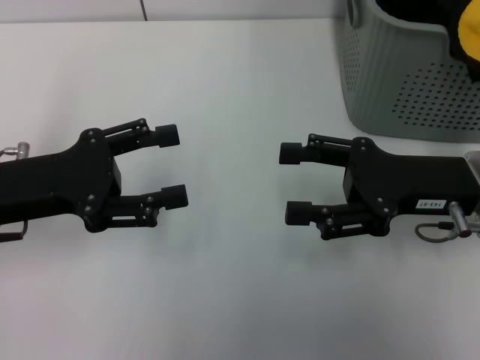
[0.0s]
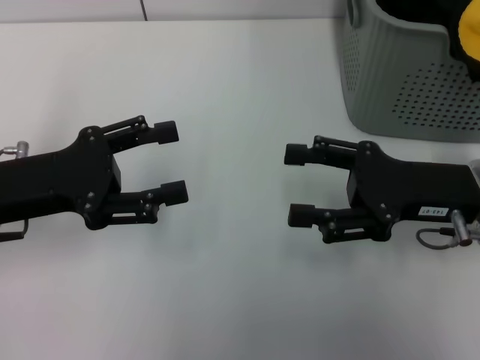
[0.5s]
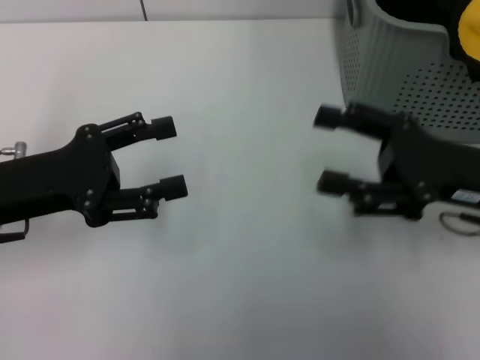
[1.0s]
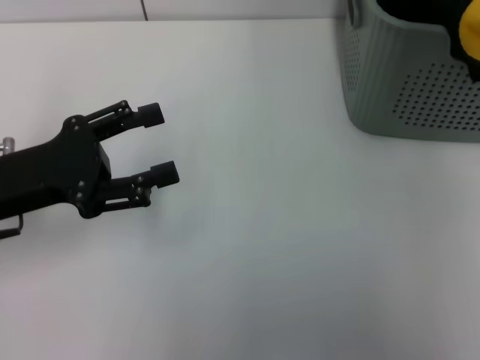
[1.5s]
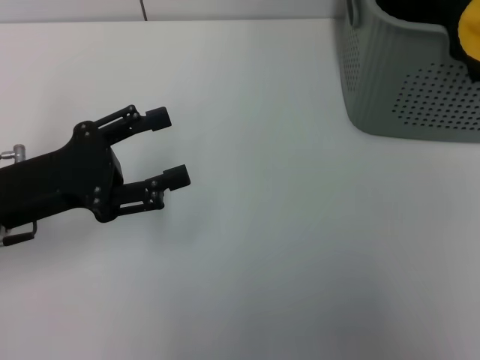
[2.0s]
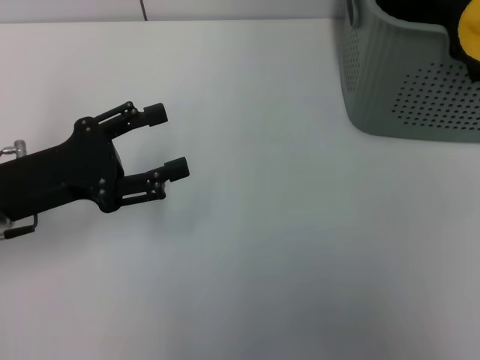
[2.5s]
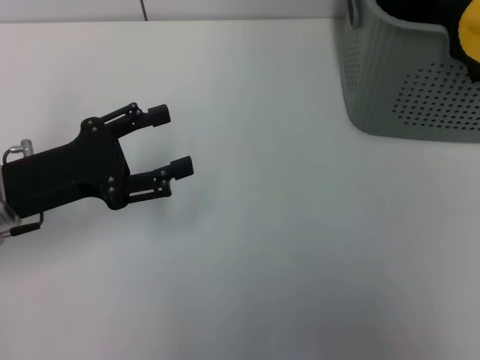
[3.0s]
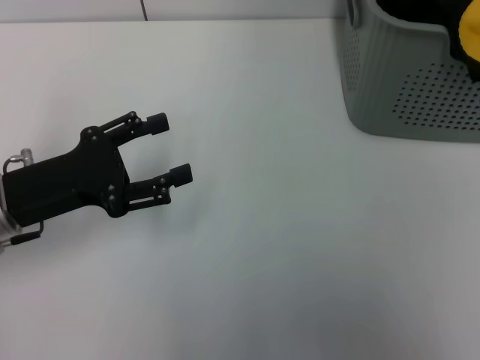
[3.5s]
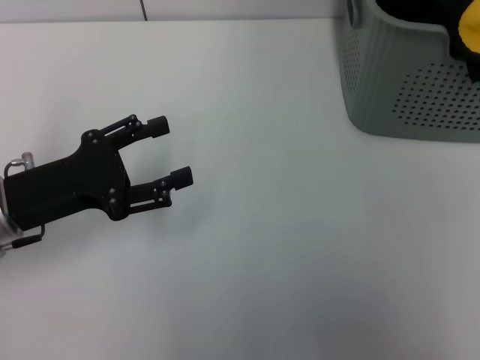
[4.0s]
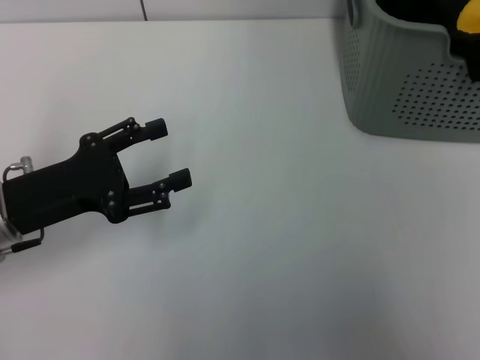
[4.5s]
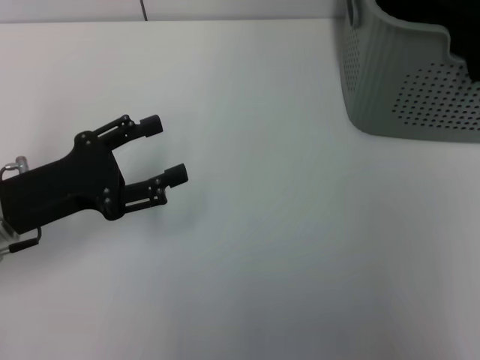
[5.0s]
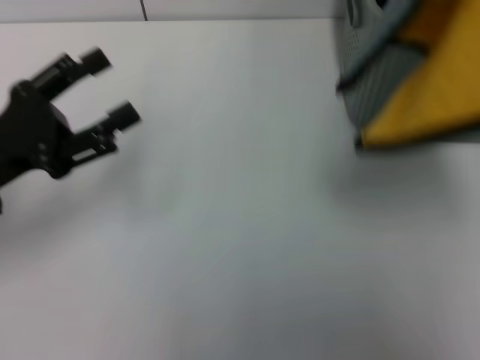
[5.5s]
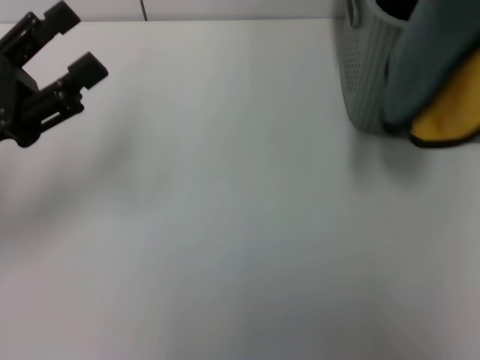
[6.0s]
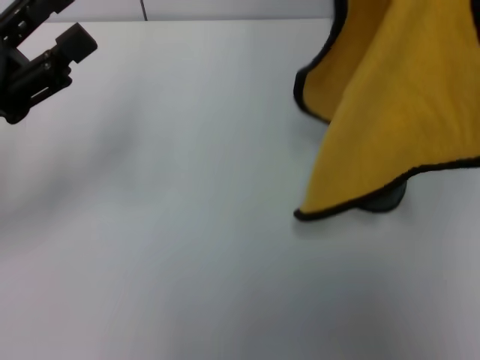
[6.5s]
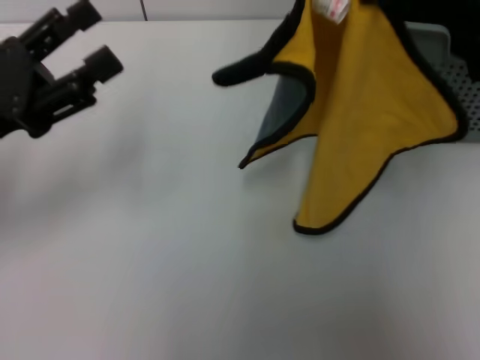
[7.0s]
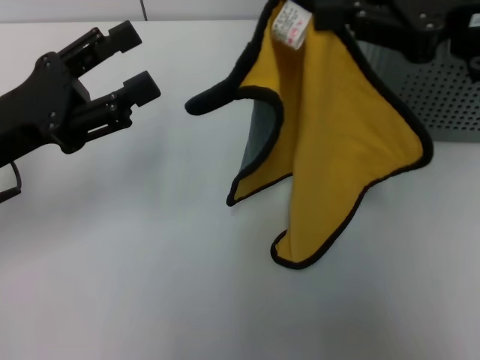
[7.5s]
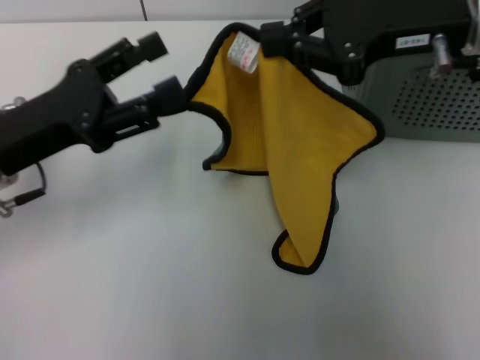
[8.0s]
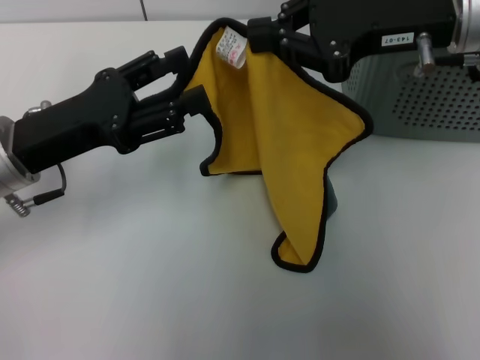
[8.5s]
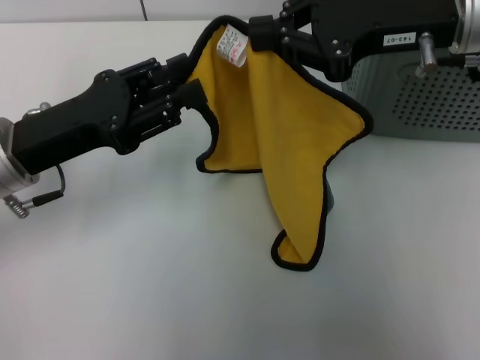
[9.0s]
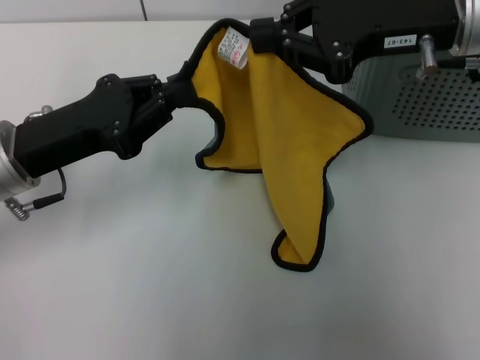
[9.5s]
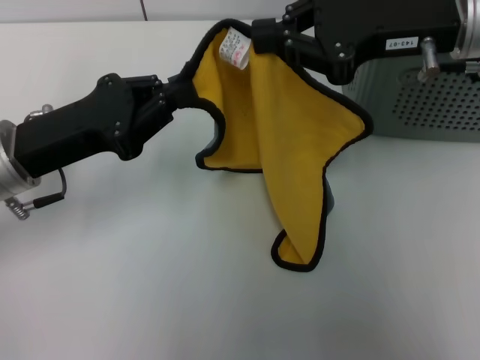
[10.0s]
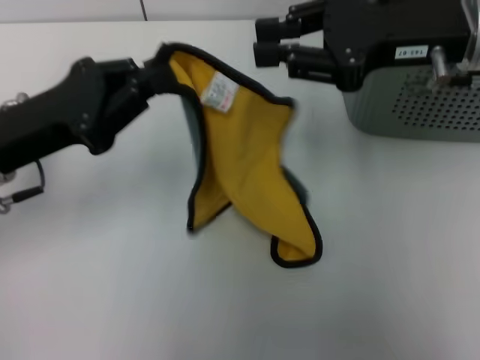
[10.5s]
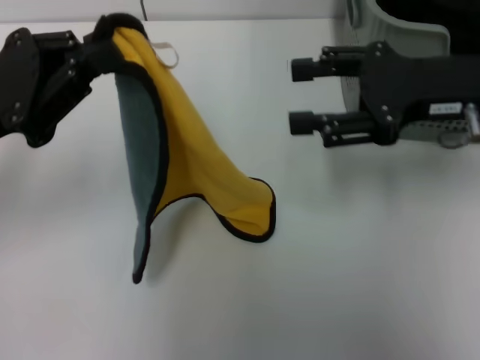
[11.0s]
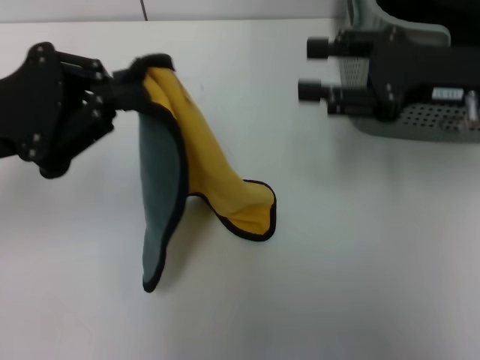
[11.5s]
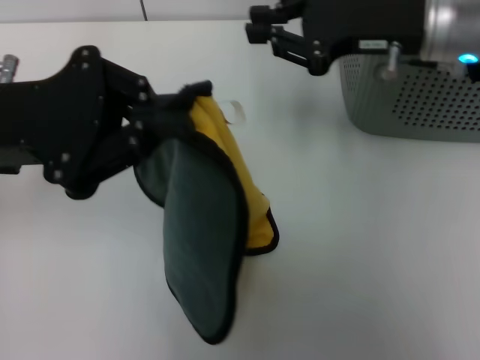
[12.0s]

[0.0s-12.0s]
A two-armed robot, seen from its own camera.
Task of the whole recording: pick up the towel from the storage box and lay it flat on the table.
Step, 0.0s to 4.5s: Pick up a towel with the right gripper.
Step, 5.0s to 9.5s: Spread the towel flat with the right gripper.
0.0s to 2.0s: The right gripper goes roughly 30 cm upward.
4.0s to 6.0s: The right gripper shifts about 5 cm to the right, and closes up. The left gripper changes place by approximately 5 cm.
6.0s to 8.0s: The right gripper moves to the left and downward, approximately 15 cm.
8.0s to 10.0s: The left gripper closes up.
10.0s to 12.0s: The right gripper opens, while the left gripper shifts approximately 10 cm upward.

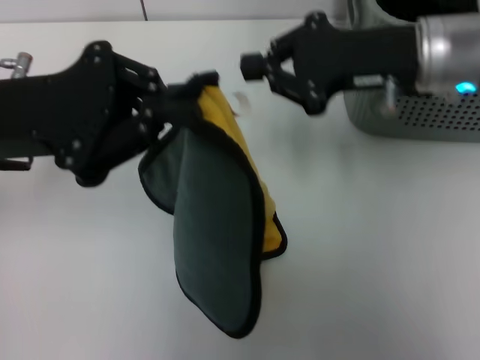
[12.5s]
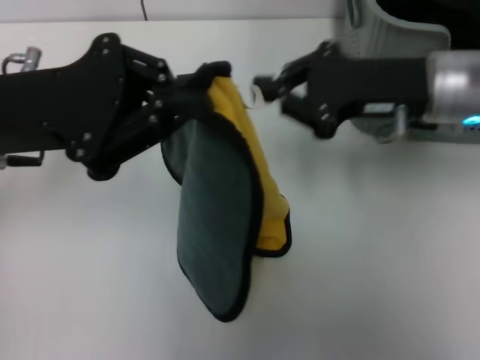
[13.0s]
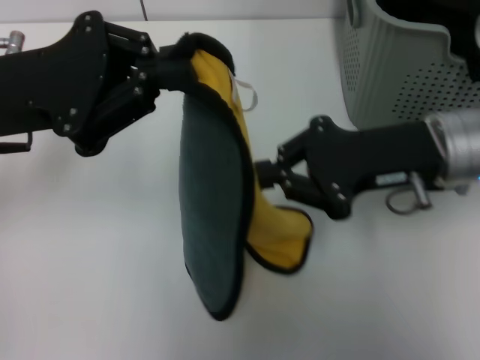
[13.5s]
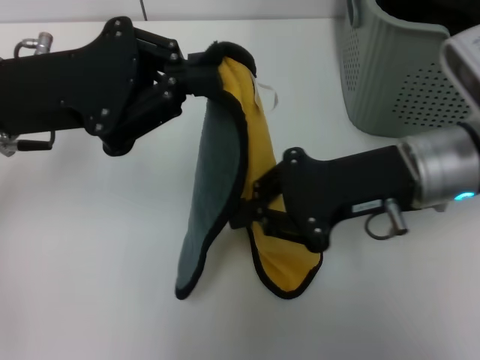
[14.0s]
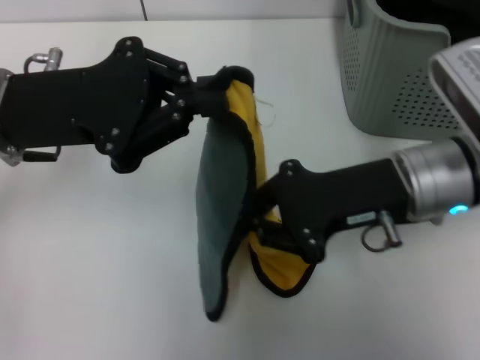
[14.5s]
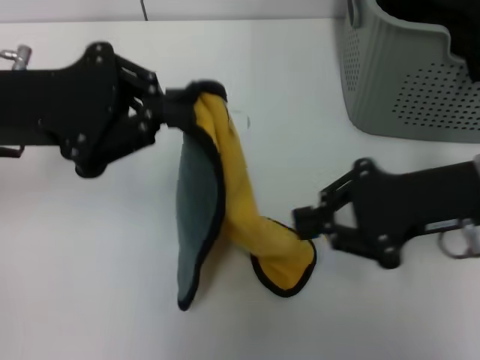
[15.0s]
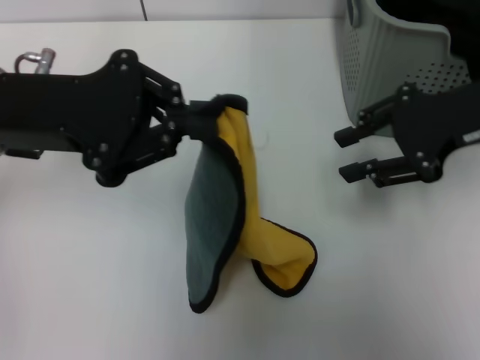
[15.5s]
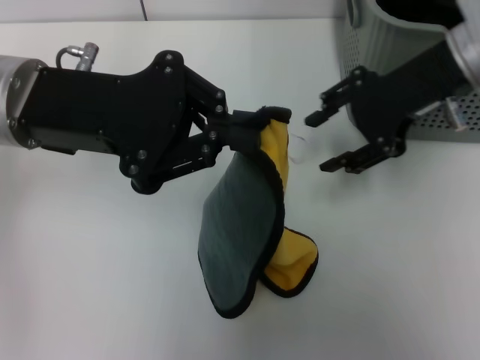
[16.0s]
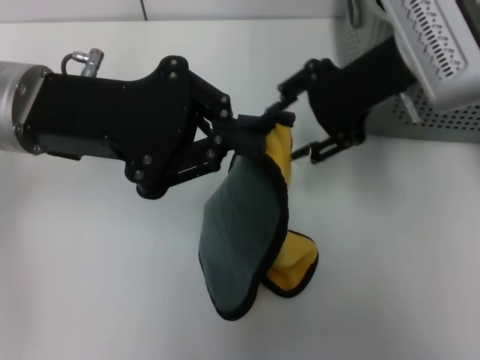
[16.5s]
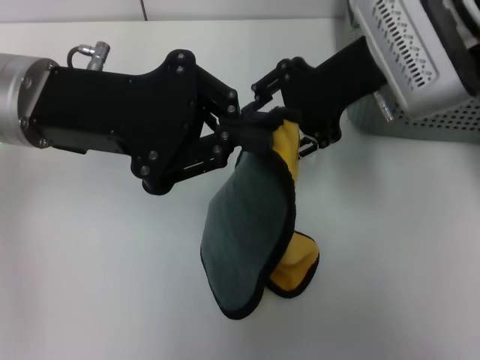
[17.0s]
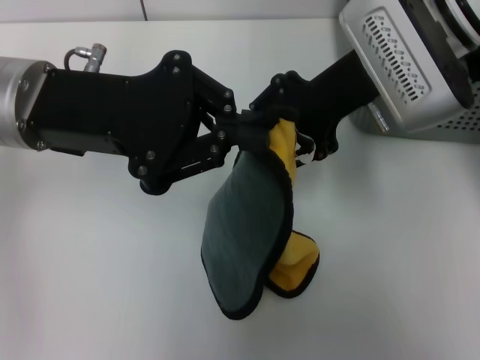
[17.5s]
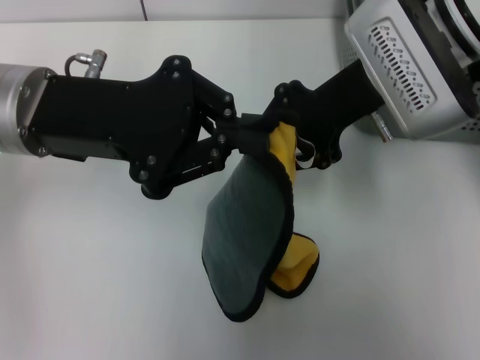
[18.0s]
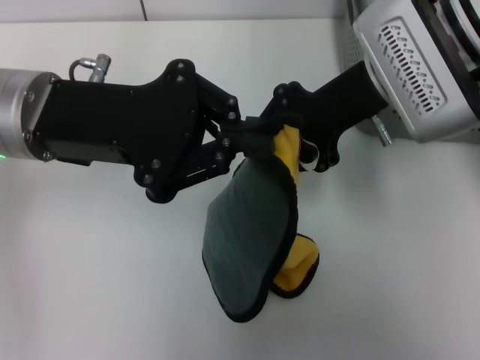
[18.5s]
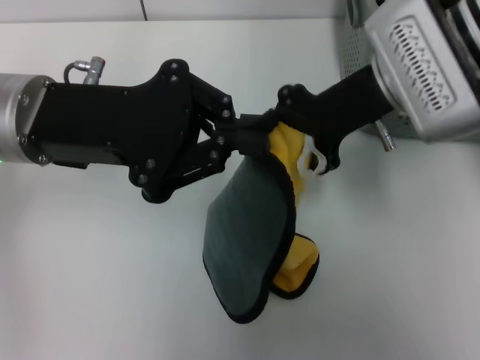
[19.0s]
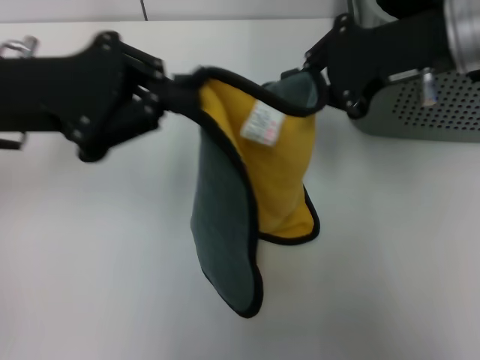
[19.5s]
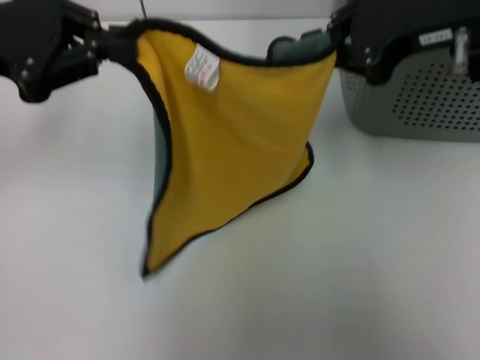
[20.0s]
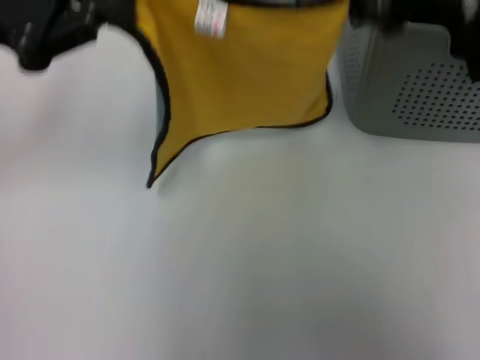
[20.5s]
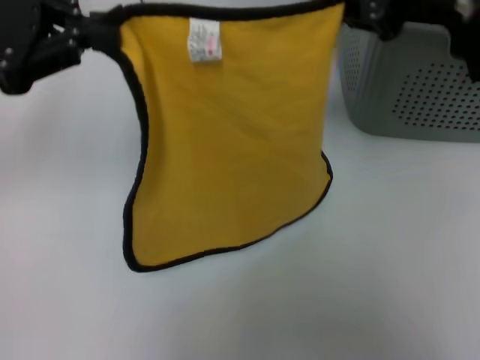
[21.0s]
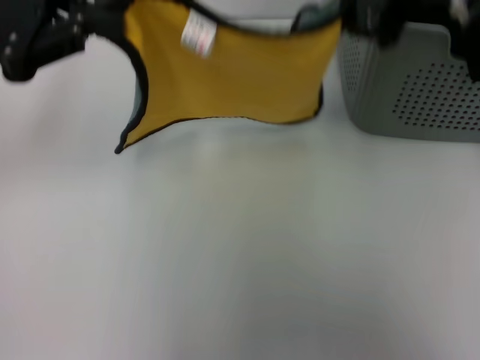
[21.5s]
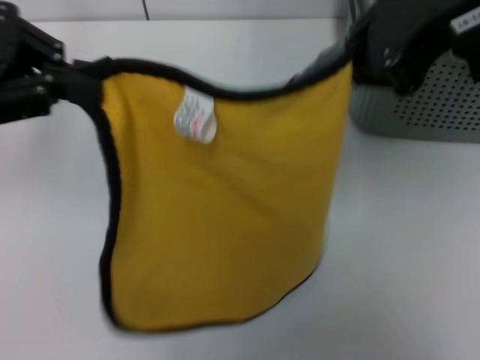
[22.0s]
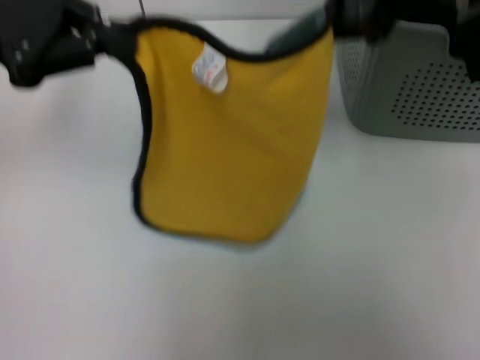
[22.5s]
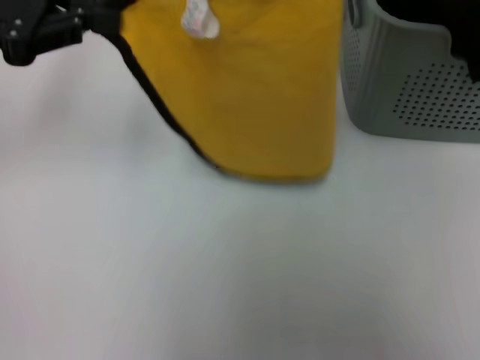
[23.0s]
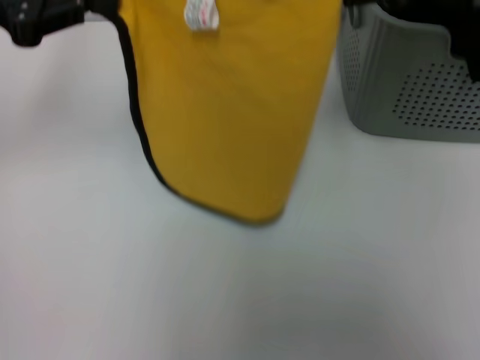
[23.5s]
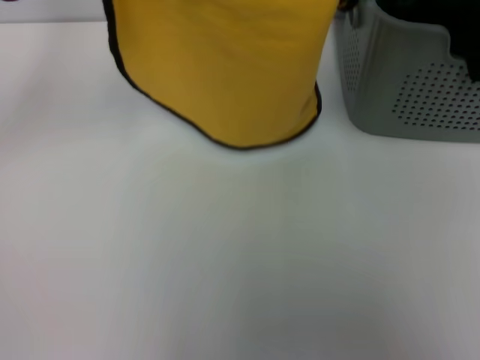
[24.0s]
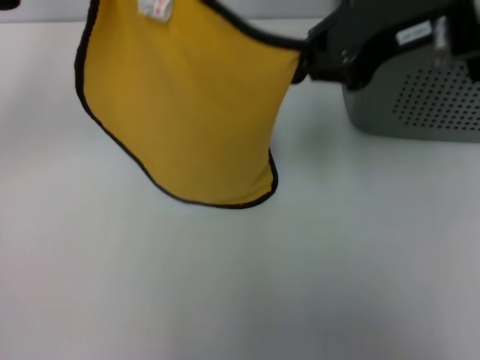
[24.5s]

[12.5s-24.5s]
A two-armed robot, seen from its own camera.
Task of the whole recording: pick up the towel from the storage box and lay it flat on the table.
12.5s to 14.5s: The right gripper heads backward and downward, covering about 10 cm.
14.5s to 16.5s: The right gripper goes about 10 cm upward and forward, and opens its fingers.
16.5s to 18.5s: The right gripper closes its fingers.
18.5s to 20.5s: The left gripper moves to the left and upward, roughly 10 cm. Meanwhile the right gripper is displaced upward and to the right by roughly 10 cm.

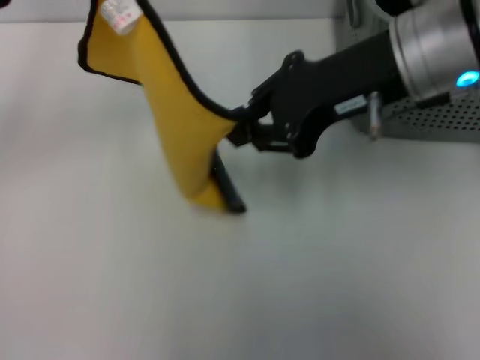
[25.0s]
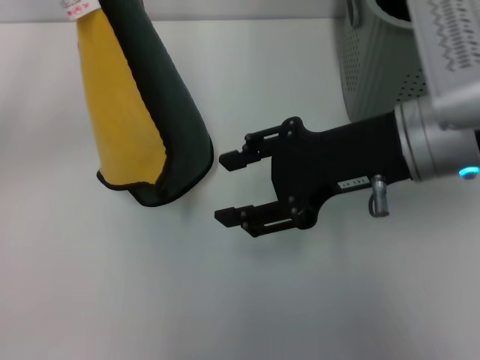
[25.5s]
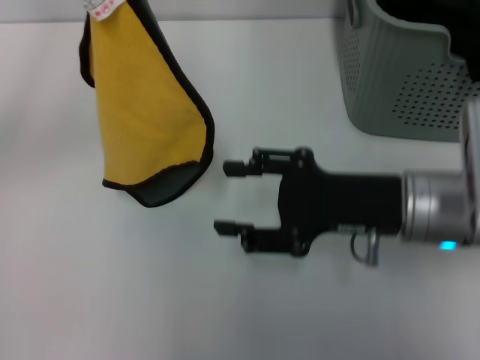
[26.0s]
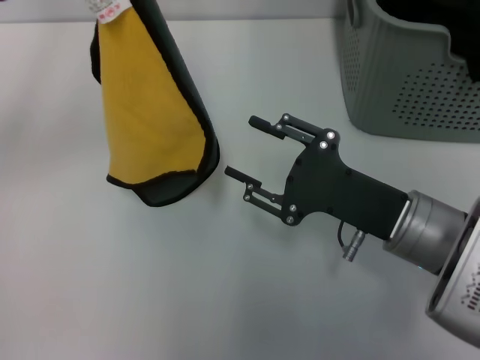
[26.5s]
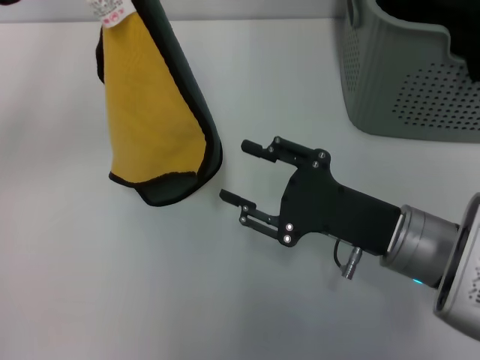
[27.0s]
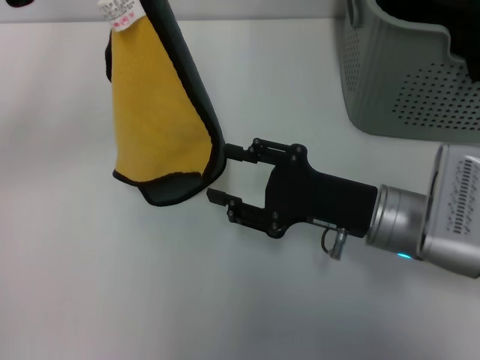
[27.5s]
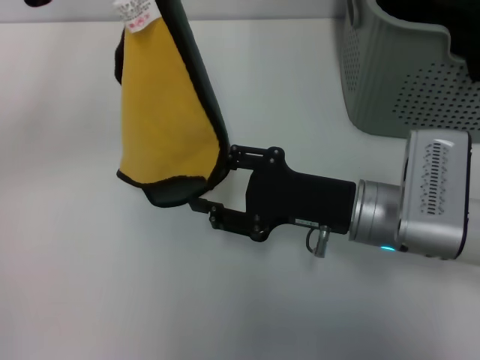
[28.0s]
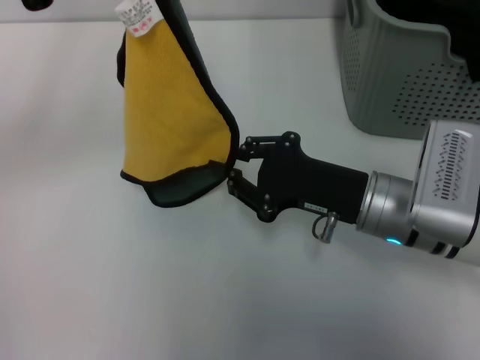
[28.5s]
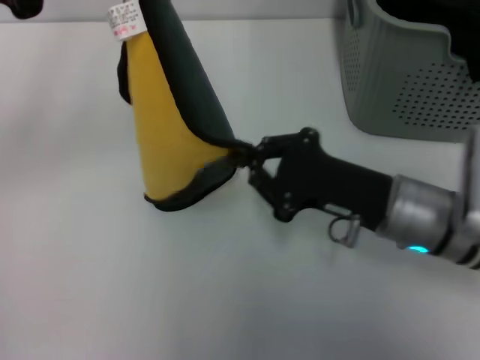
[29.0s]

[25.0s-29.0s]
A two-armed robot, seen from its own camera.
Task of the whole recording: pick up the towel from the storage box and lay it flat on the table.
25.0s to 27.0s: The right gripper is displaced downward by some 20 cm, and opens.
27.0s to 29.0s: The right gripper closes.
